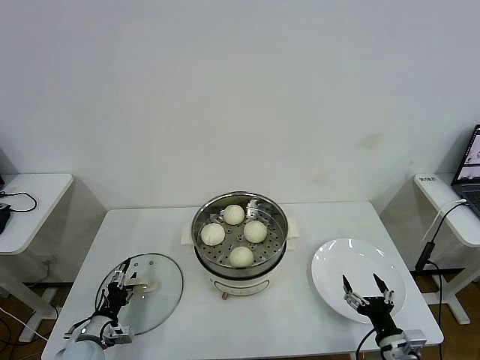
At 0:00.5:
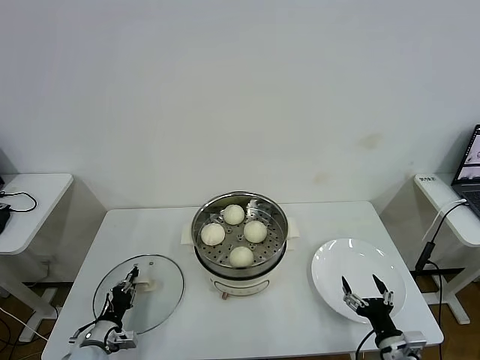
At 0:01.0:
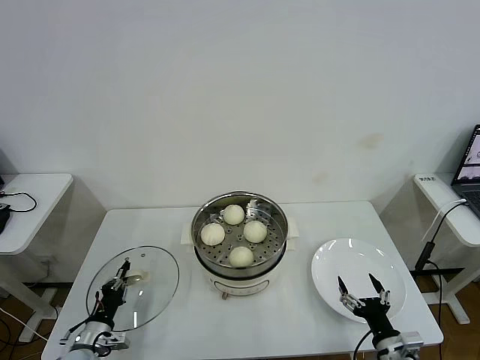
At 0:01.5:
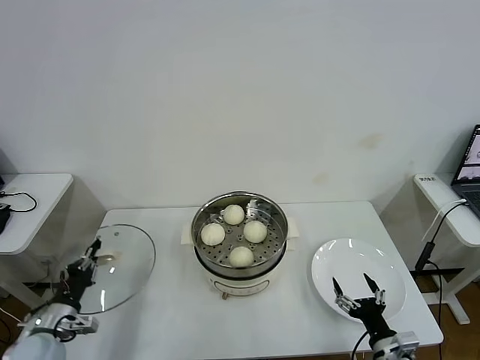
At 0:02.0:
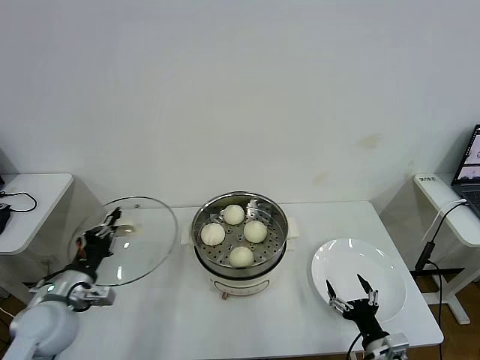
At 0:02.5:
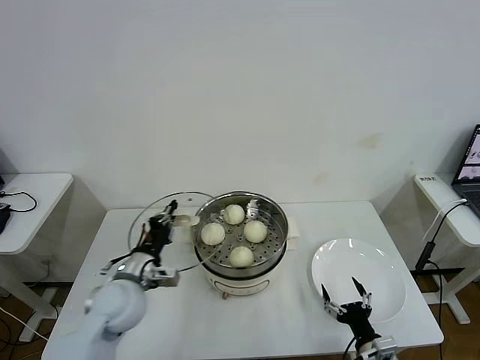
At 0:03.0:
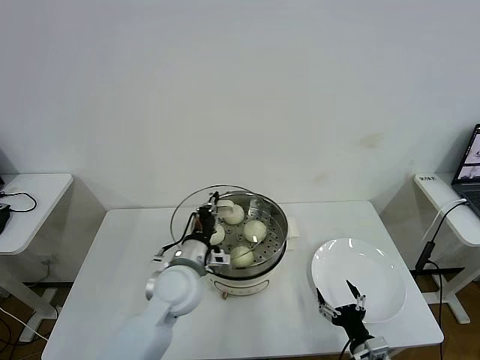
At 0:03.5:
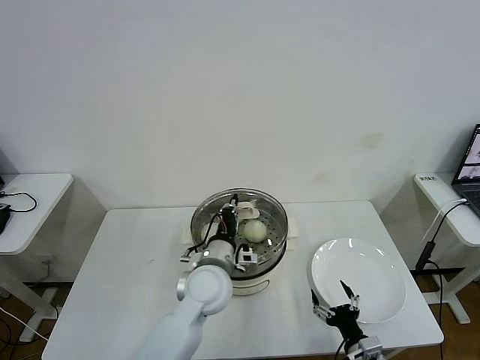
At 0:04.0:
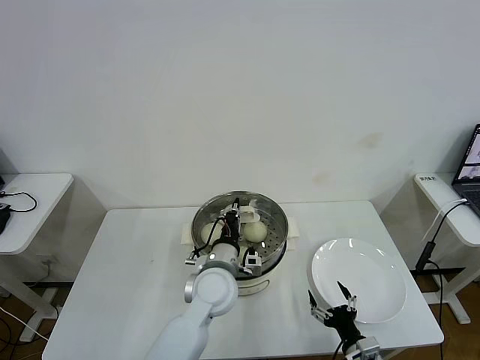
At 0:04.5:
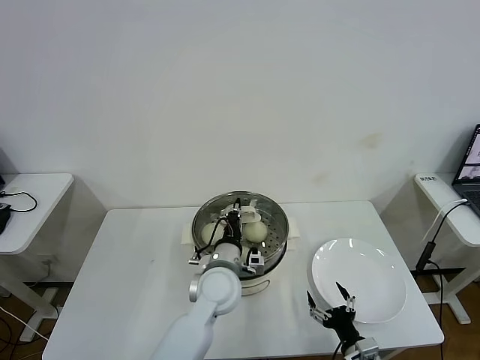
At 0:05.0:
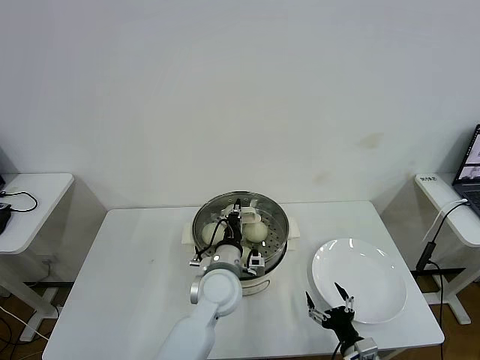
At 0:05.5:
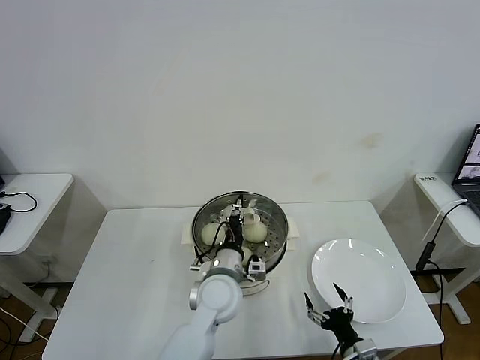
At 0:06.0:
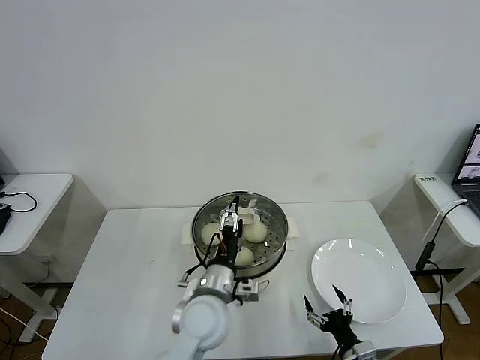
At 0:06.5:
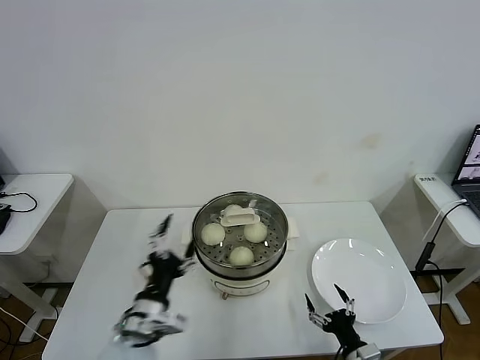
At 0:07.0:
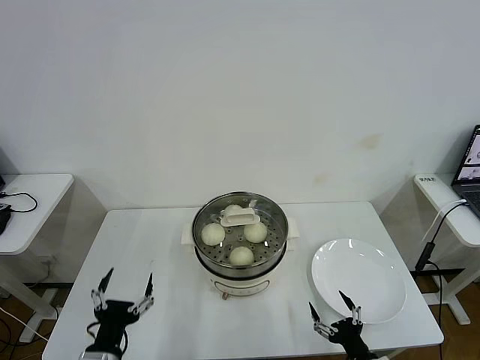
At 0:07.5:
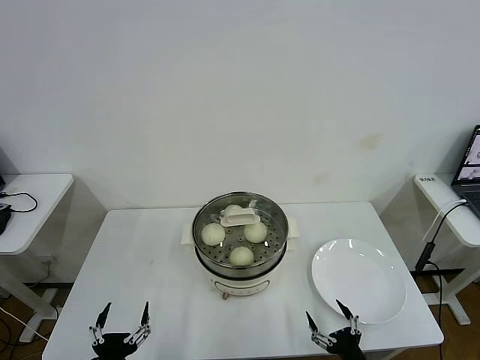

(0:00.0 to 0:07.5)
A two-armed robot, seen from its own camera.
Task of the whole recording: take steamed baozi put them in steamer then cover it.
Step, 0:01.0 - 0:06.0: Place the pot lid on the steamer with left gripper.
0:00.0 - 0:02.0: The left gripper moves upward, some 15 cm, and closes.
0:02.0 - 0:04.0: The left gripper heads to the right, covering approximately 30 cm.
0:04.0 - 0:05.5: The left gripper opens.
0:05.5 - 0:07.5: The right gripper is displaced backward by roughly 5 cm; the left gripper moves backward and to the left, roughly 35 cm, and opens up.
